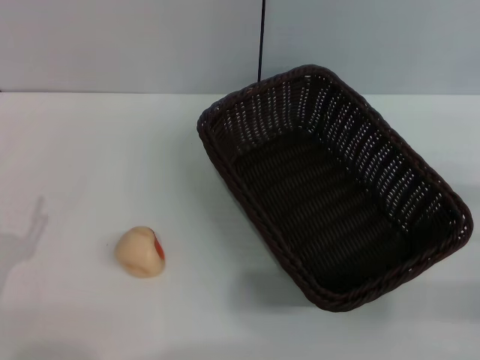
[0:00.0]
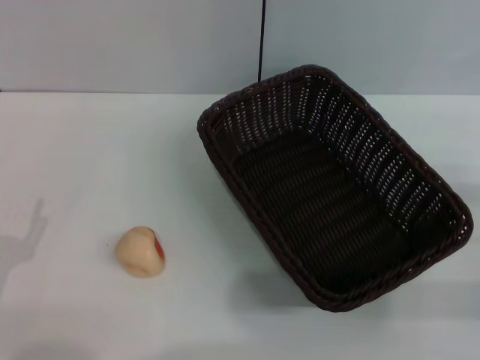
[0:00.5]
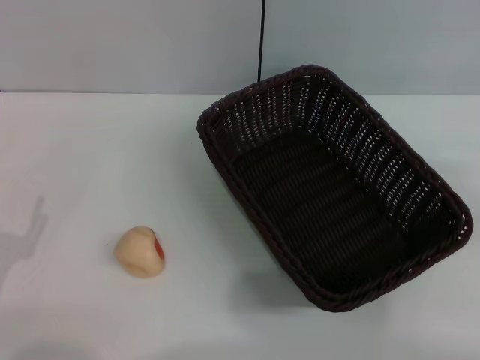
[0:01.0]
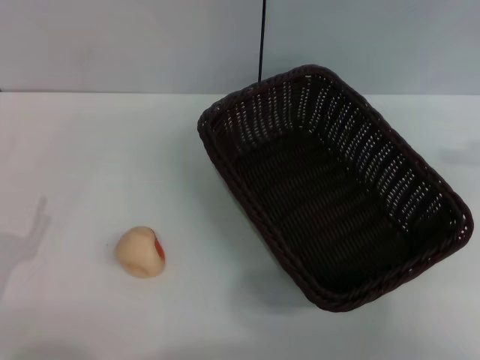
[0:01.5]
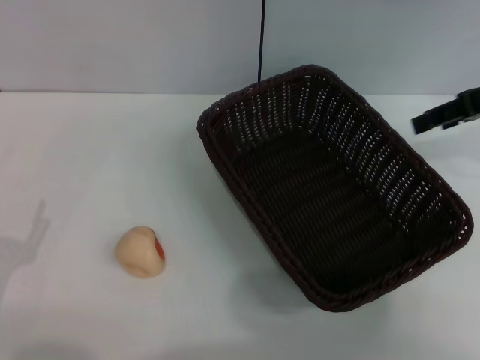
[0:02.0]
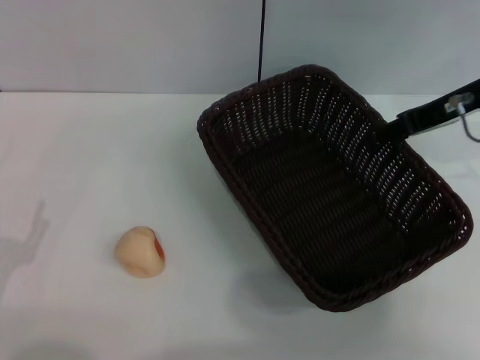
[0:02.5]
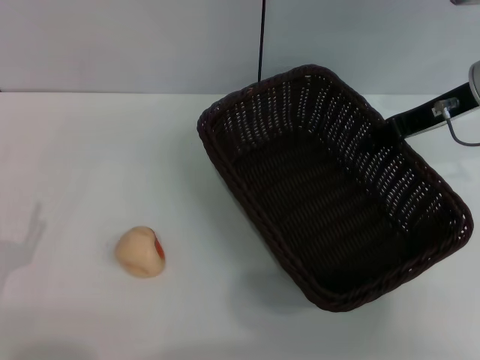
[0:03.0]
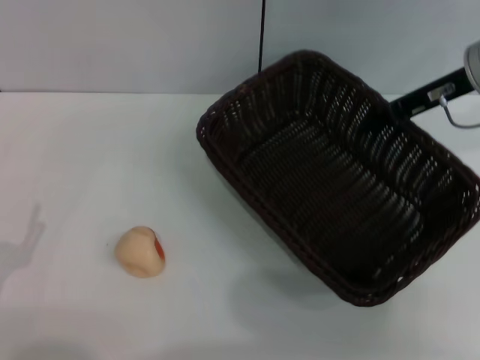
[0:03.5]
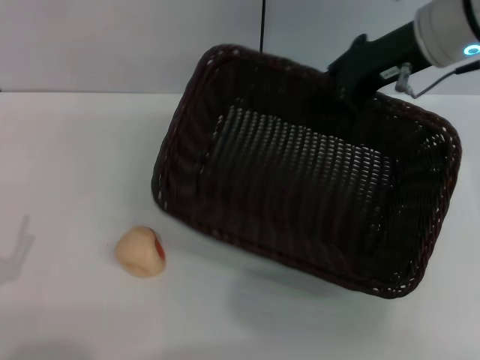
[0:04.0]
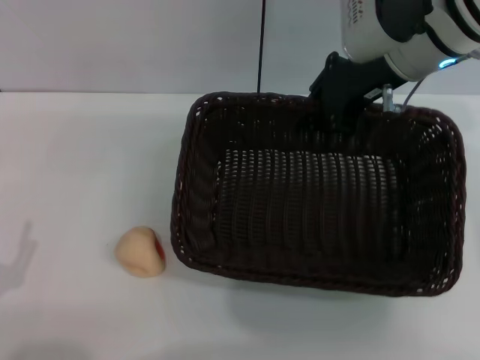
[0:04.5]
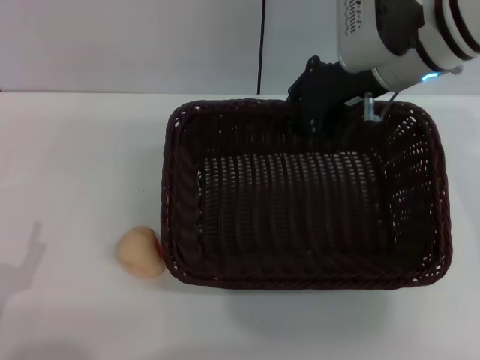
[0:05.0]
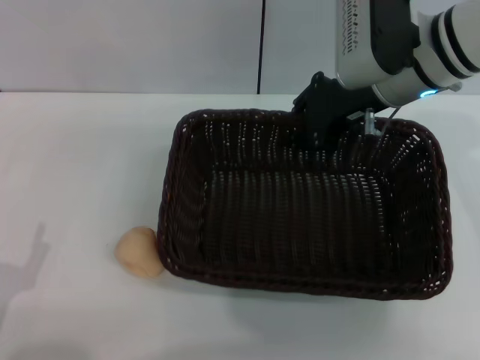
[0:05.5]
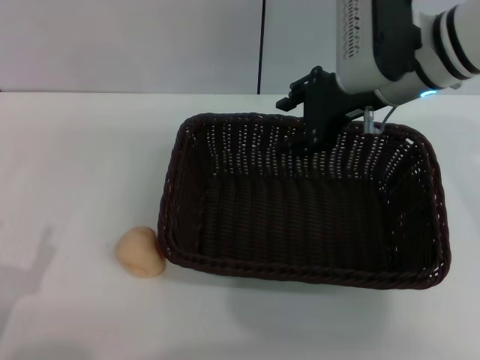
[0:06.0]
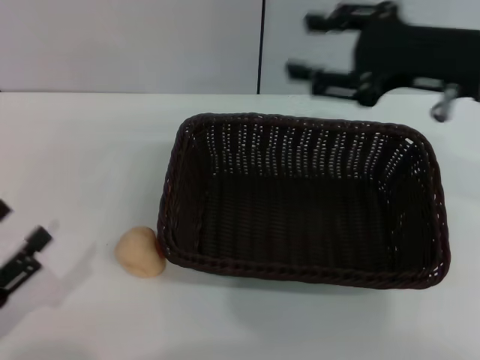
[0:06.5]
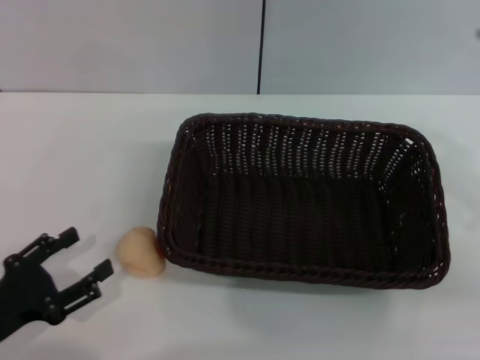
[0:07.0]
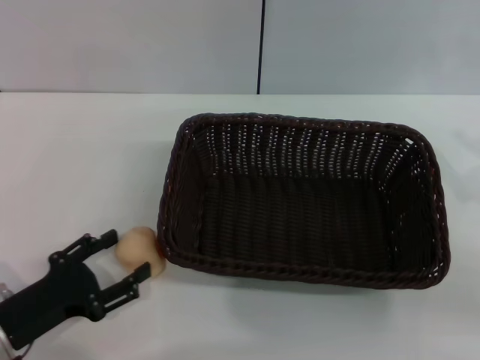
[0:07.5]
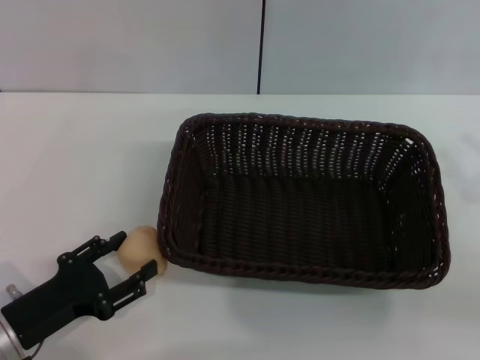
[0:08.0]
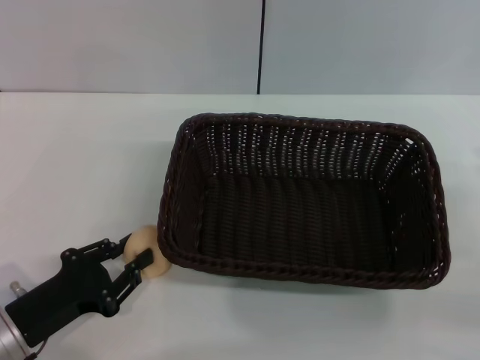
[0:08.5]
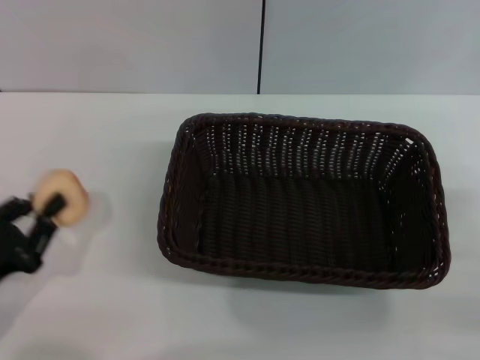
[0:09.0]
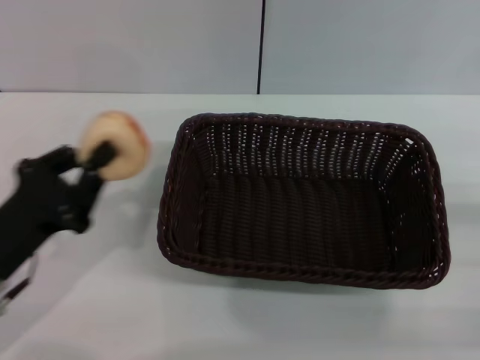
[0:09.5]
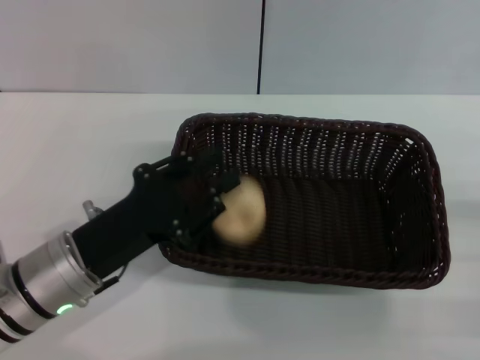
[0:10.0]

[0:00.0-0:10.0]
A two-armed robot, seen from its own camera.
Step, 0:00.0 to 0:06.0: Move the basket to the center of view with the right gripper.
Step, 0:06.5 to 0:09.0: Pick up the egg yolk pastry with the left gripper.
0:00.0 to 0:02.0: The right gripper travels forward and upward by roughly 25 cm.
0:02.0 to 0:04.0: The right gripper goes about 10 cm to the left, and closes up.
0:04.0 to 0:06.0: The right gripper opens its fingers.
0:06.0 to 0:08.0: The left gripper goes about 5 cm forward, while the right gripper travels to the right, backward and downward by roughly 25 cm.
0:08.0 to 0:10.0: The right gripper goes approximately 5 cm downward. The left gripper is displaced to the right and upward by some 10 cm, and closes.

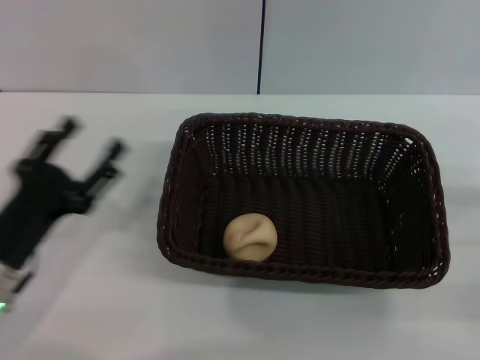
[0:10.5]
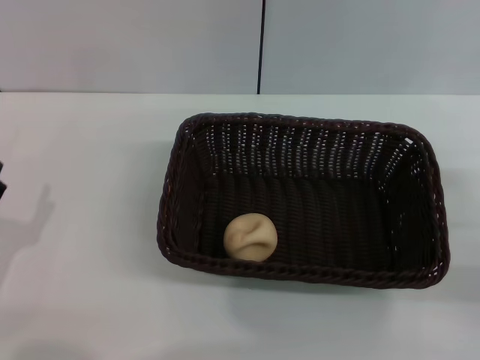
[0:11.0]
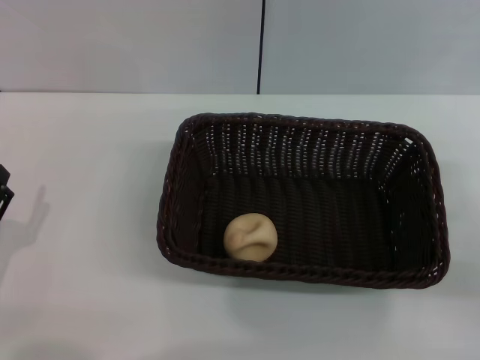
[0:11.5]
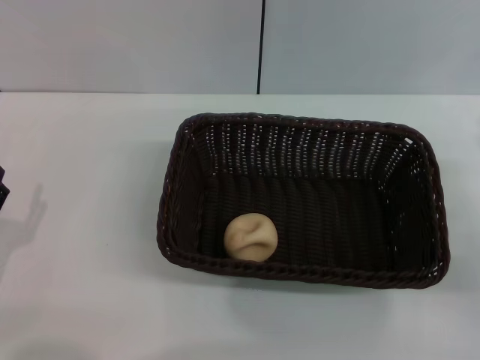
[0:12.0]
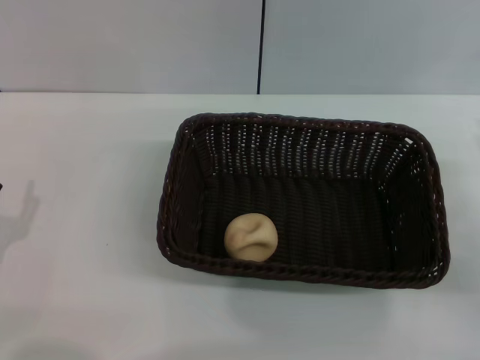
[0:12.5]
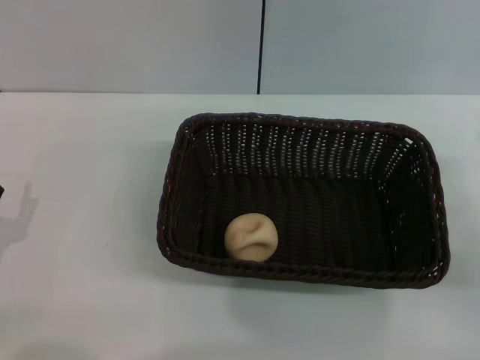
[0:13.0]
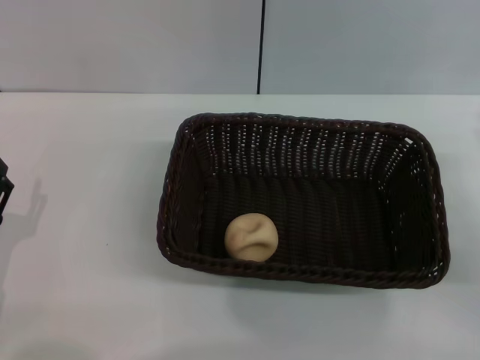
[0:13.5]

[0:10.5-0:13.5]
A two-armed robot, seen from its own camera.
0:10.5 to 0:12.0: The left gripper changes place by roughly 5 cm.

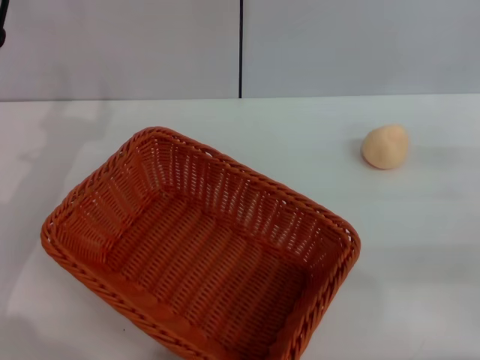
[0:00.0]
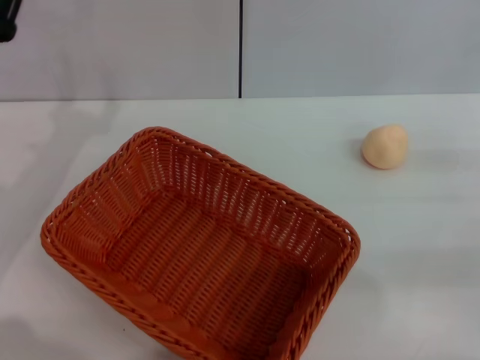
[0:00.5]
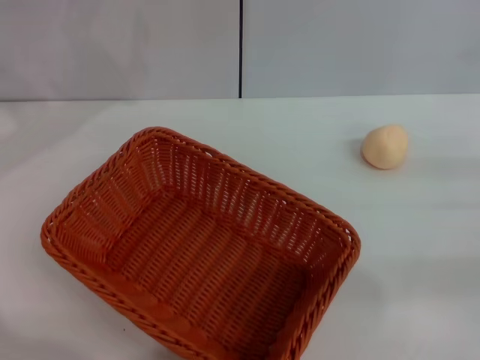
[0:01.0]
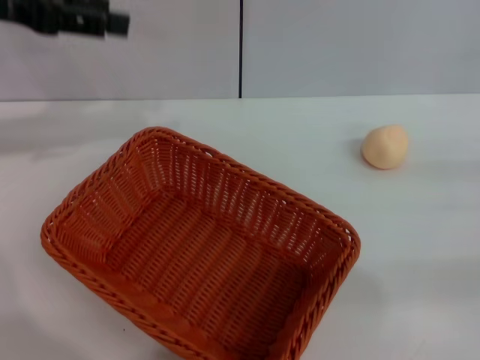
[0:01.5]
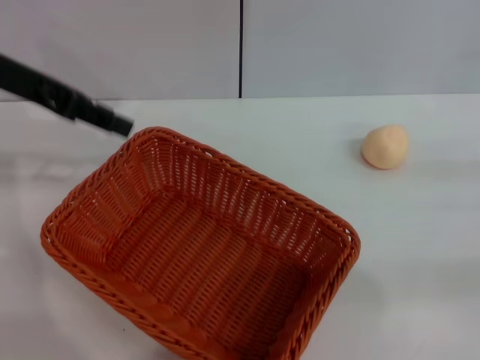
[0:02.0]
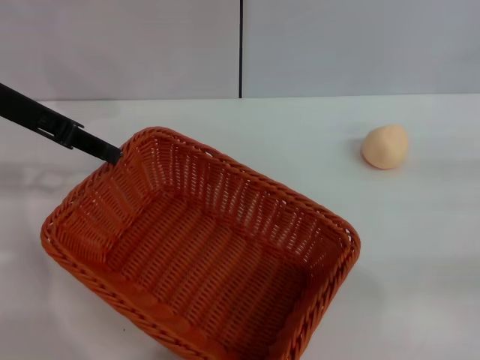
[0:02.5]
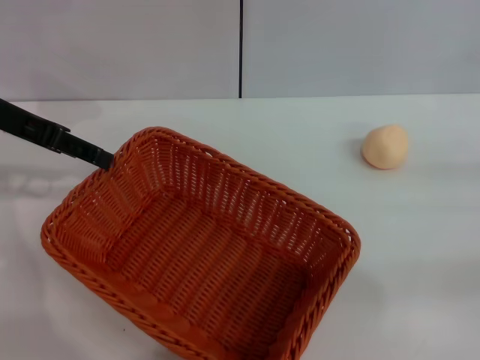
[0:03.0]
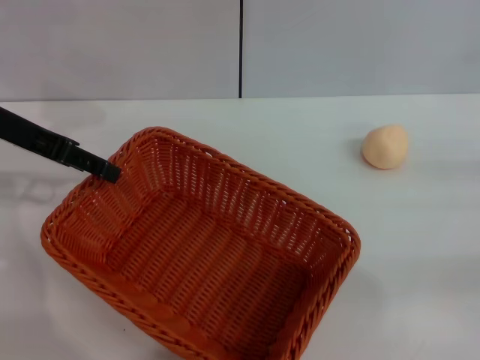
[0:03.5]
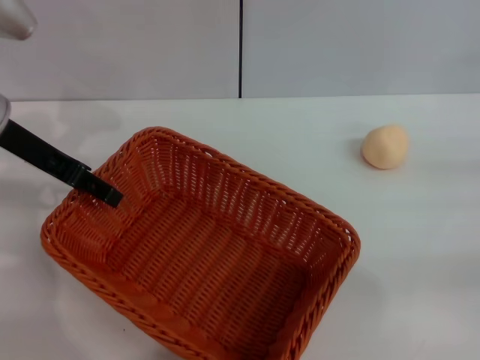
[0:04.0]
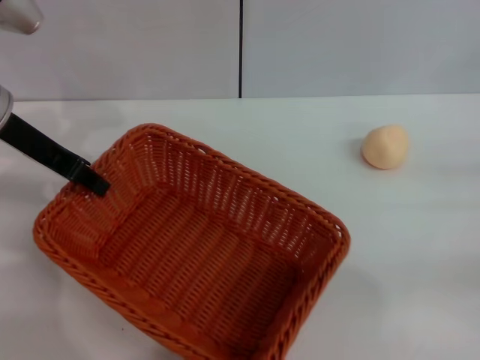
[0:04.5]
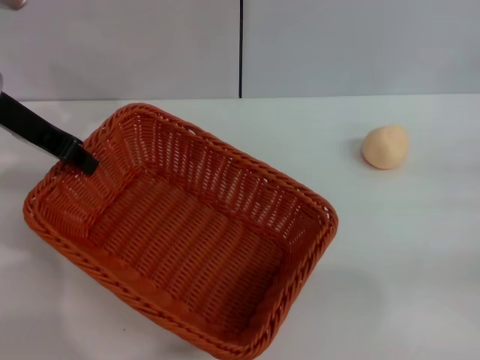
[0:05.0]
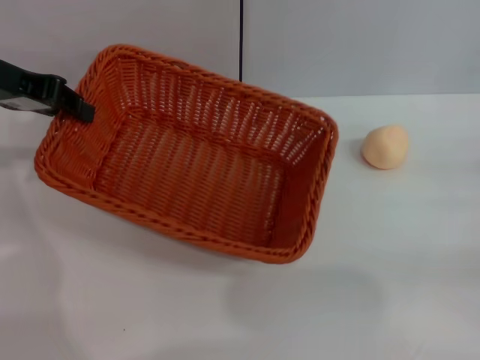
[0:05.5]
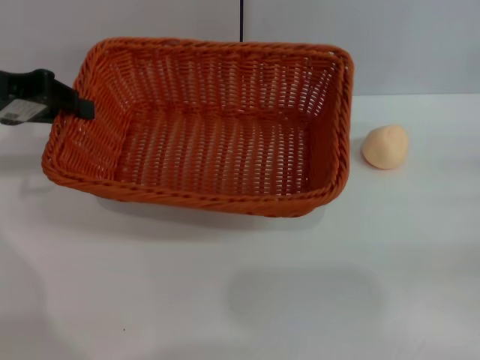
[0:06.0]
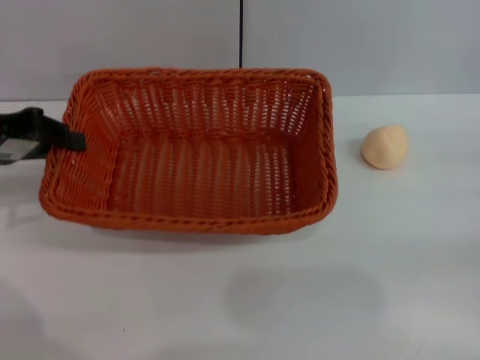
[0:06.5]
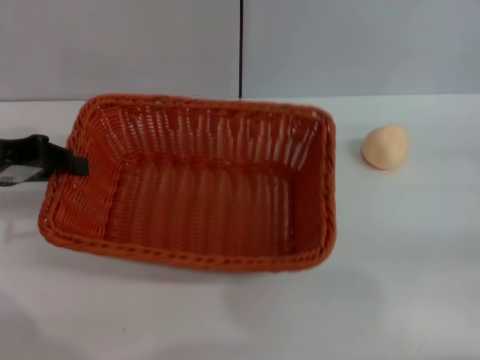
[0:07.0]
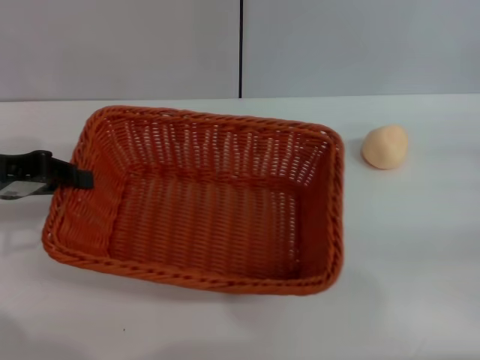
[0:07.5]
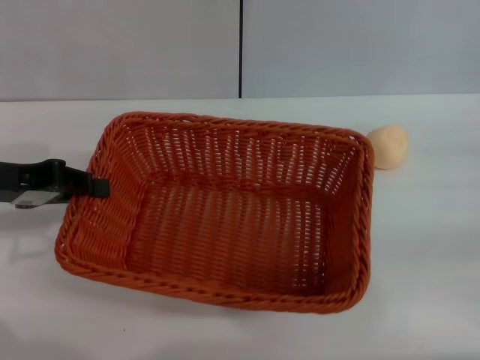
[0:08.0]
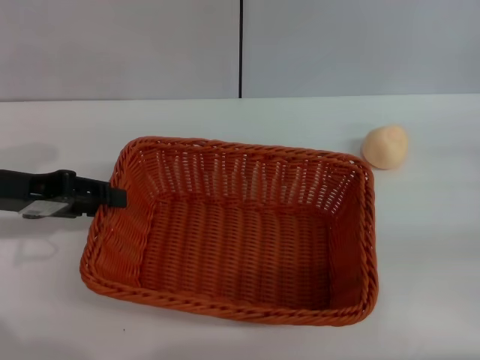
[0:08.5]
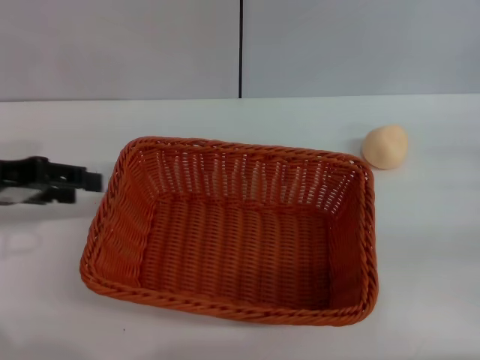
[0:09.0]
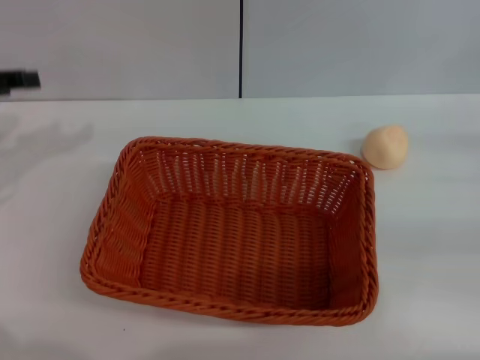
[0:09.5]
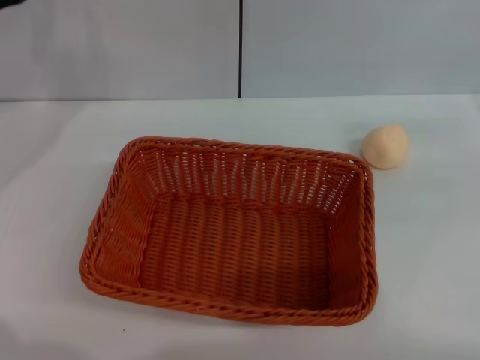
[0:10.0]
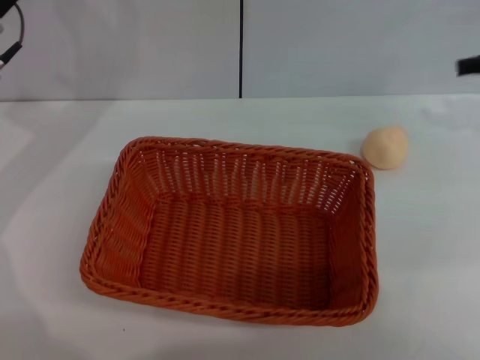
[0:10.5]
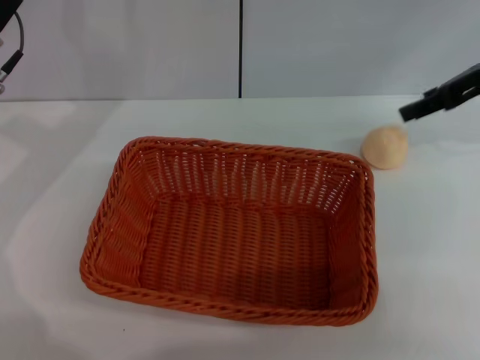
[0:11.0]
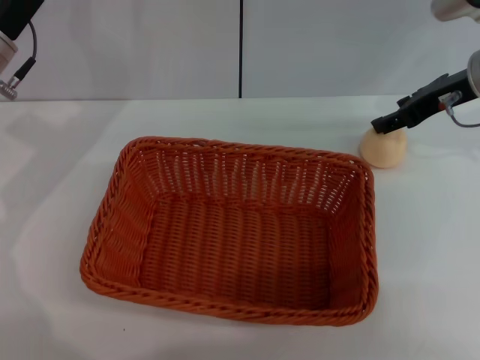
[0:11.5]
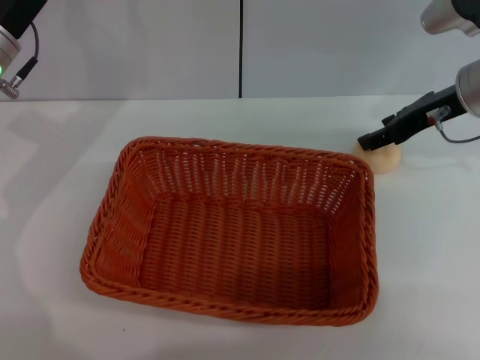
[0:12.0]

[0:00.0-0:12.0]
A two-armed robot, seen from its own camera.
Step, 0:00.0 to 0:09.0: Move the basket to the center of view with the left gripper.
0:00.0 to 0:02.0: The left gripper travels upward and forward by about 15 cm.
0:02.0 to 0:04.0: The left gripper is displaced downward by some 5 cm.
0:04.0 to 0:06.0: The left gripper moves some 5 cm, and closes its fingers.
0:06.0 to 0:08.0: The left gripper travels backward and downward by some 10 cm.
0:08.0 to 0:10.0: The left gripper goes roughly 10 cm forward, and opens its fingers, while the right gripper travels upward by some 10 cm.
0:10.0 to 0:12.0: The left gripper moves to the right, some 5 cm. Meanwhile the right gripper shifts about 20 cm to the left and forward.
